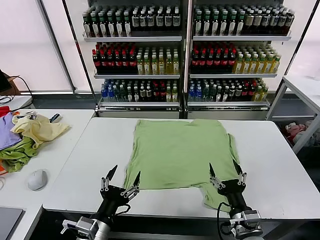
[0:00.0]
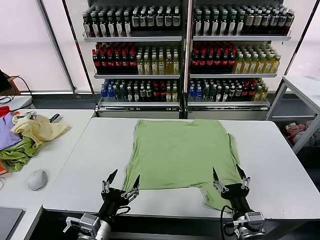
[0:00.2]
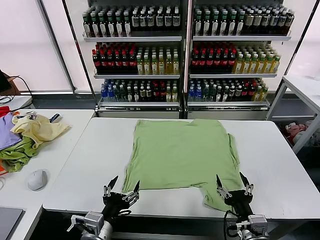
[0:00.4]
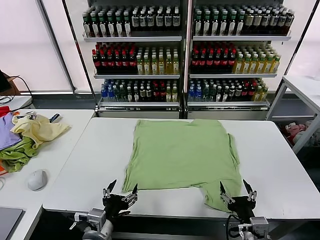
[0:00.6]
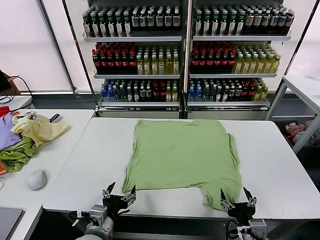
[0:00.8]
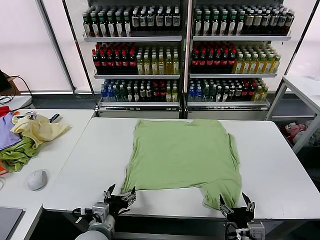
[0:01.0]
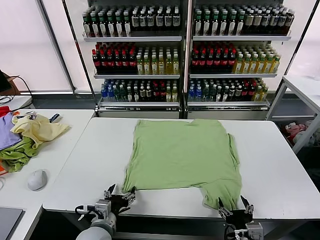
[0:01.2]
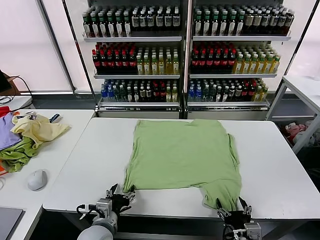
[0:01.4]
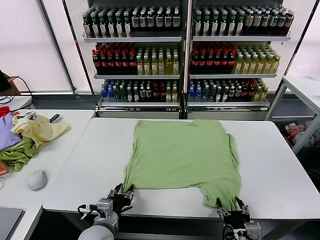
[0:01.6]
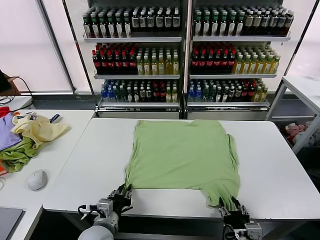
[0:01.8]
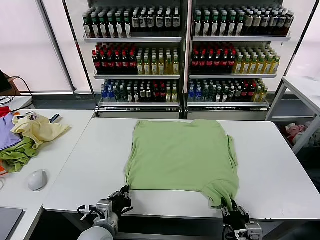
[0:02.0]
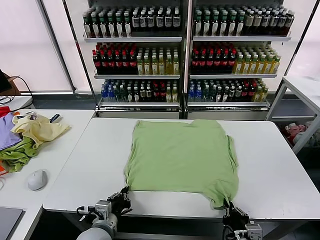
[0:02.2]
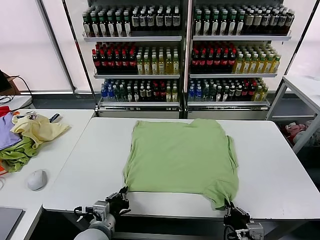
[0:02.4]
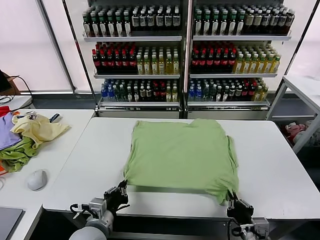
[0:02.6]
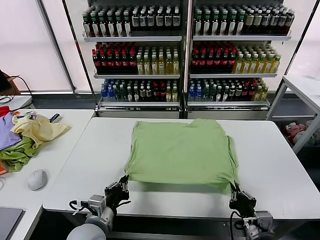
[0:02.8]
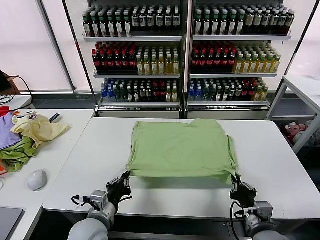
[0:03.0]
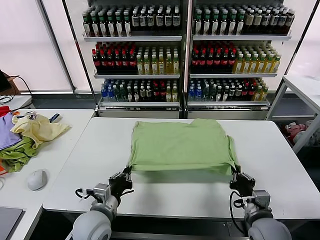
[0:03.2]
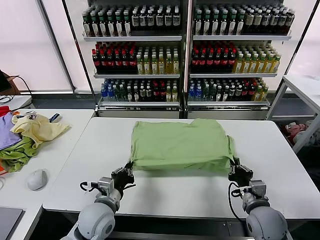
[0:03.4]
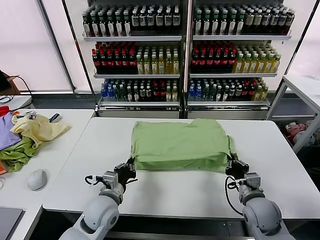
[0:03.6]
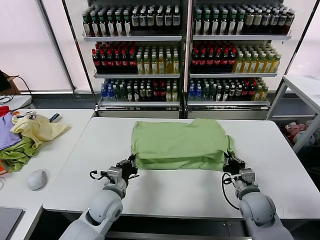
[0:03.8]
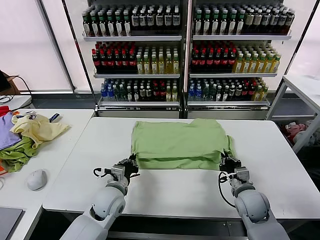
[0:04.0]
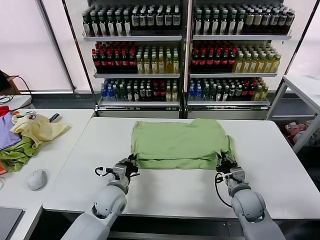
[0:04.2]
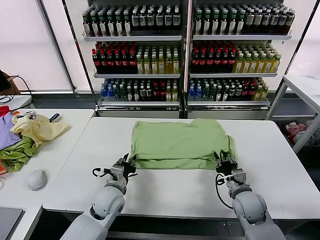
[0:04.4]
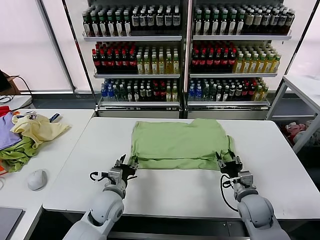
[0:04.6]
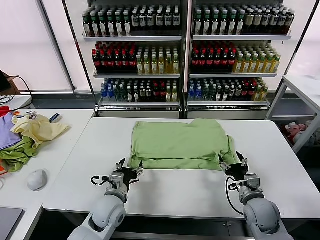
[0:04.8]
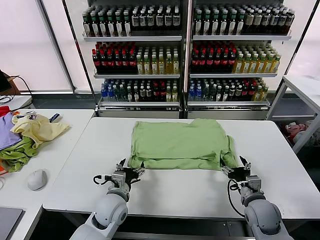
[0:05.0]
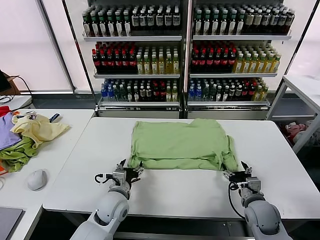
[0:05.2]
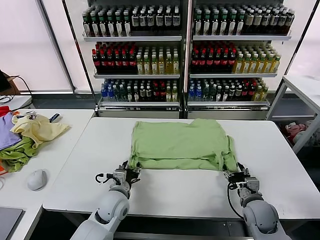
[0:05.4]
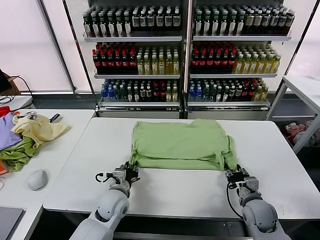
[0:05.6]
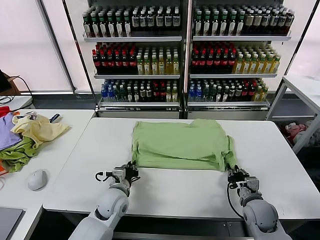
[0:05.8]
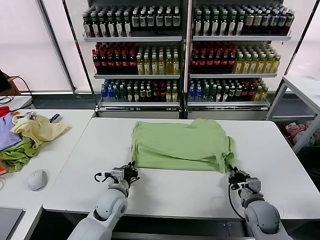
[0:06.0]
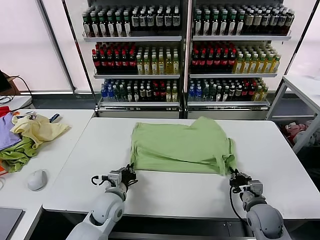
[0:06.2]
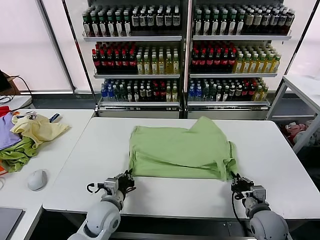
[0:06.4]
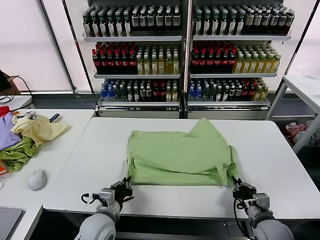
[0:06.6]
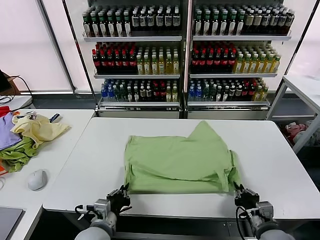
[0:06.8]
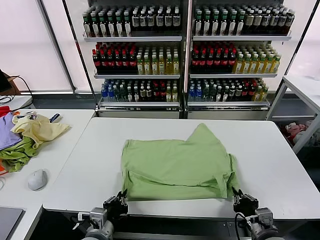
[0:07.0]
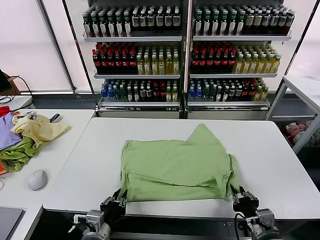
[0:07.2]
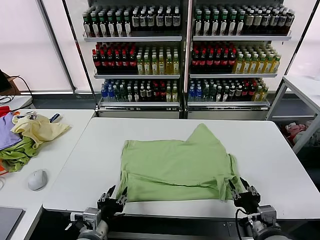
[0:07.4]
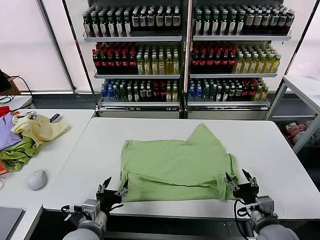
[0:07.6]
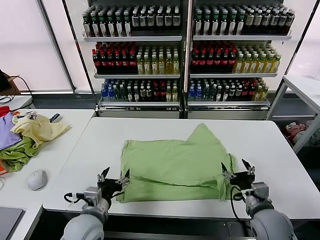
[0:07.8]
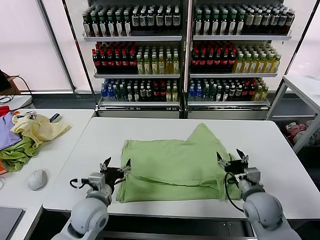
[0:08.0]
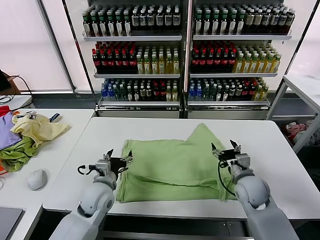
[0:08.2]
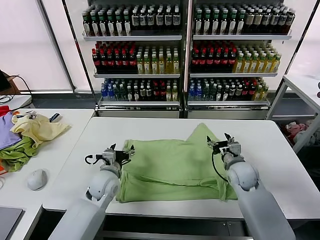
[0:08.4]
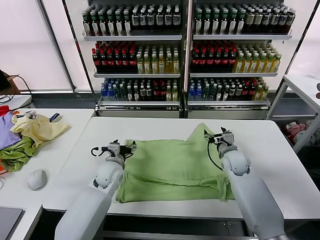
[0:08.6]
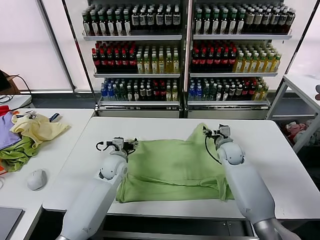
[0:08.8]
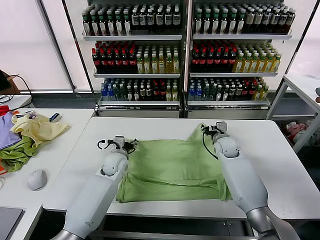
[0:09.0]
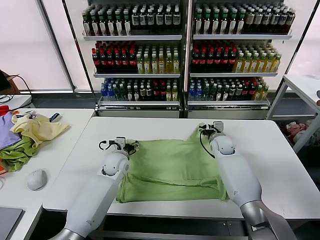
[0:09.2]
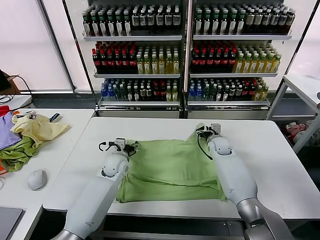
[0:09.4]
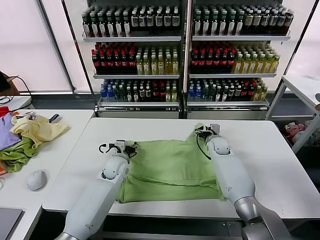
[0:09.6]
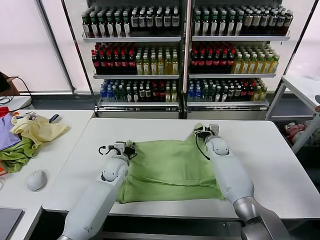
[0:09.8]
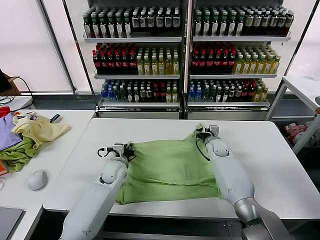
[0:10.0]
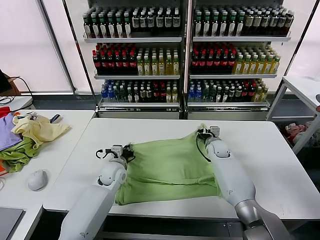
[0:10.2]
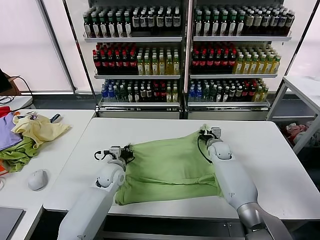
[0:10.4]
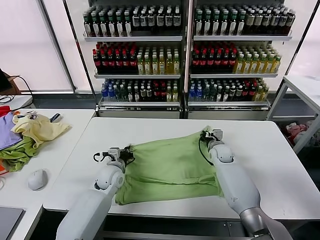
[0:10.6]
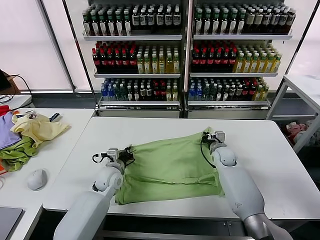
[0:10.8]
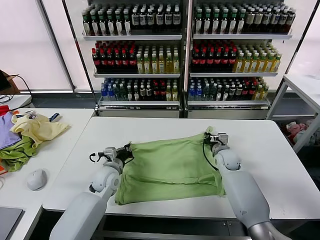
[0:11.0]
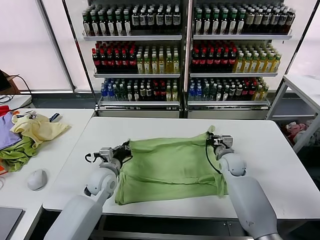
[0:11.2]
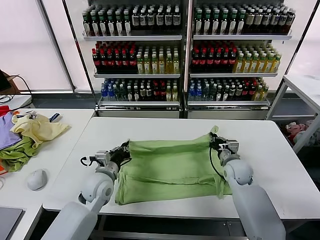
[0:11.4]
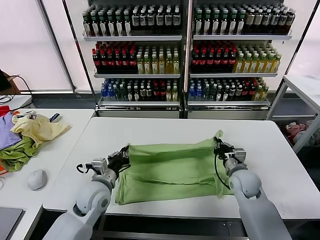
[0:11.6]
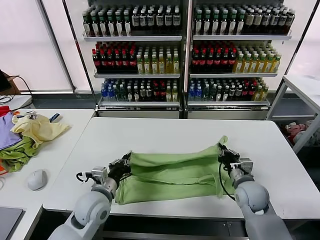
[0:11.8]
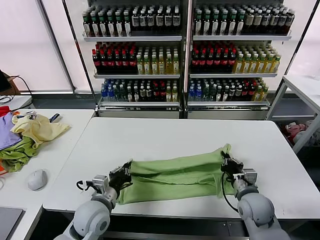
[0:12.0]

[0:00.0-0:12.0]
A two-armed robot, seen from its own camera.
Task of the whole recording: fold and organize the clothes.
Step, 0:00.0 to 0:02.2: use both grippers simultaneously to clamp the lower edge of the clothing fabric.
Step, 0:02.4 to 0:04.4: use both grippers to drag the lower edge of the fabric forward and fold it over the upper edge.
Step, 0:04.6 to 0:07.2: Drag the clothes downward with both gripper.
Step, 0:07.6 to 0:10.6: use both grippers simultaneously to clamp the upper edge of the clothing fabric.
0:01.6 to 0:03.0: The right gripper is displaced forward by about 10 cm, and closes up. The left gripper closes its fingers.
0:03.0 to 0:04.4: Both grippers travel together forward, some 10 cm. The left gripper opens its fingers; the right gripper opens its fingers.
0:04.4 to 0:06.0: The right gripper closes up; the left gripper closes.
0:06.0 to 0:07.6: The right gripper heads upward and backward, covering some 10 cm, and opens its fingers; the left gripper moves backward and upward, about 15 cm, and opens.
0:07.6 to 0:09.0: The two grippers go some 30 cm forward.
0:09.0 to 0:10.4: The left gripper closes its fingers, while the right gripper closes up.
0:10.4 to 0:12.0: The left gripper goes some 15 cm backward. Meanwhile the right gripper is displaced backward by approximately 25 cm.

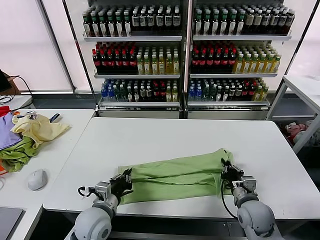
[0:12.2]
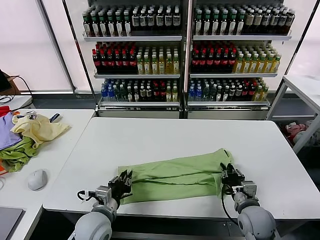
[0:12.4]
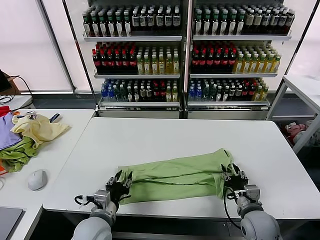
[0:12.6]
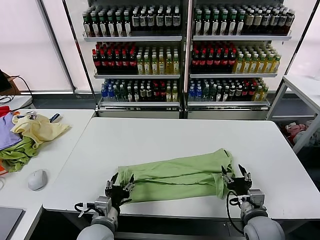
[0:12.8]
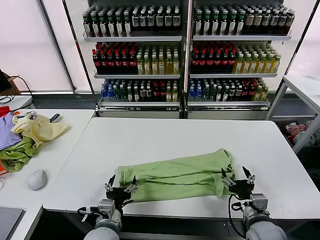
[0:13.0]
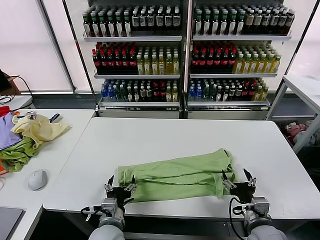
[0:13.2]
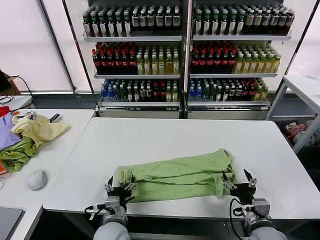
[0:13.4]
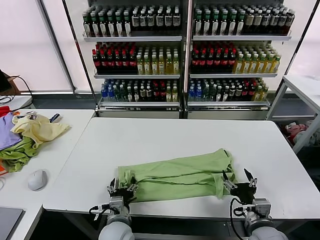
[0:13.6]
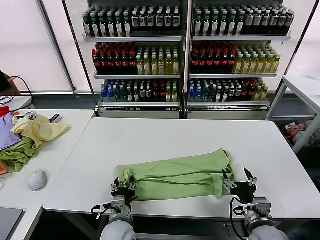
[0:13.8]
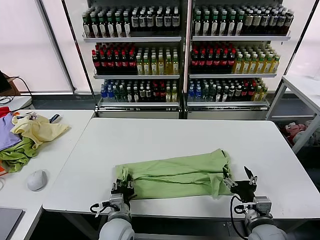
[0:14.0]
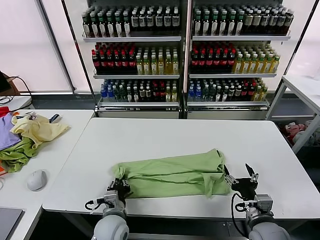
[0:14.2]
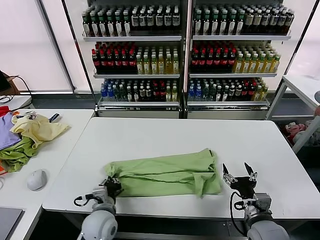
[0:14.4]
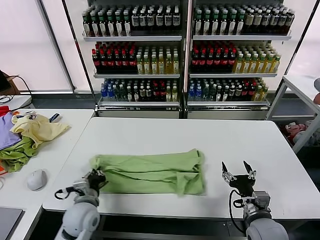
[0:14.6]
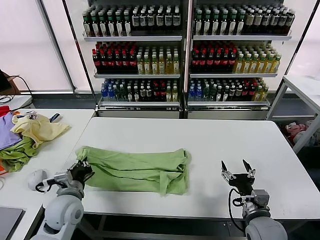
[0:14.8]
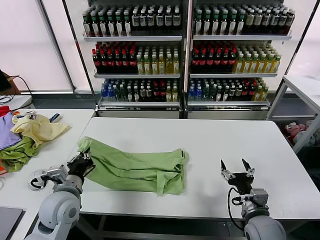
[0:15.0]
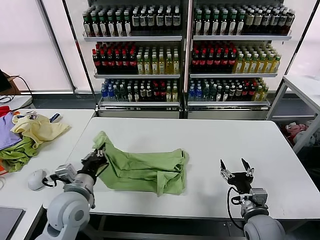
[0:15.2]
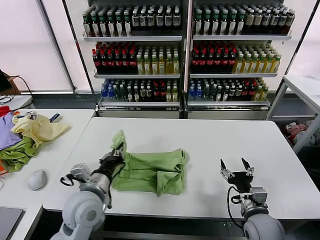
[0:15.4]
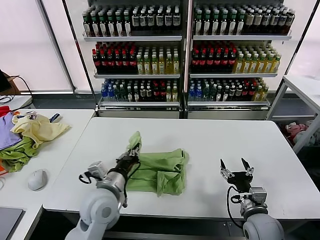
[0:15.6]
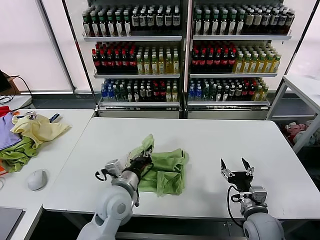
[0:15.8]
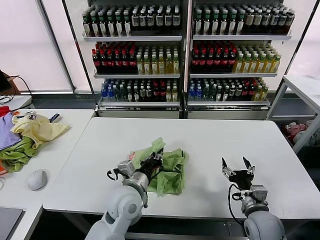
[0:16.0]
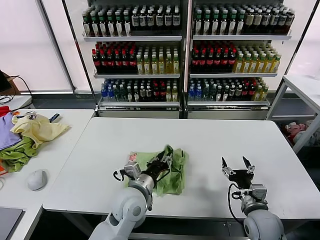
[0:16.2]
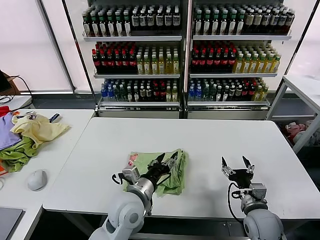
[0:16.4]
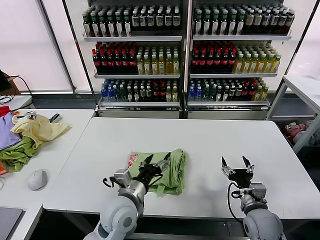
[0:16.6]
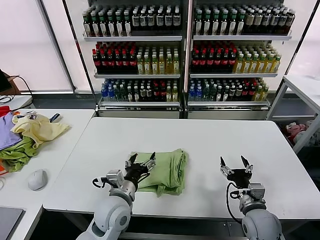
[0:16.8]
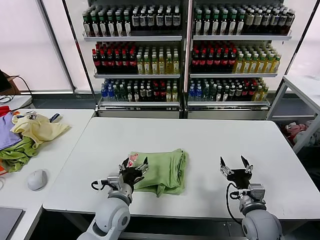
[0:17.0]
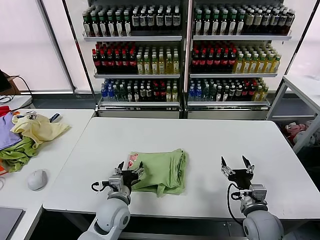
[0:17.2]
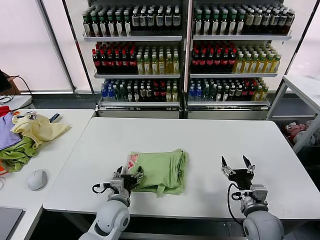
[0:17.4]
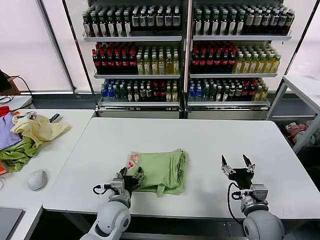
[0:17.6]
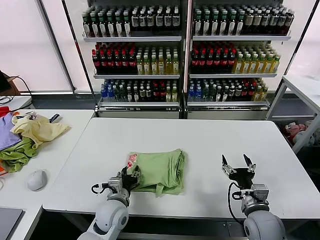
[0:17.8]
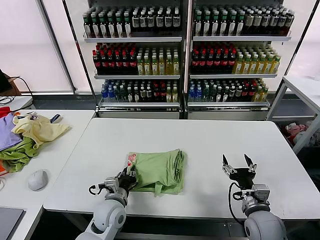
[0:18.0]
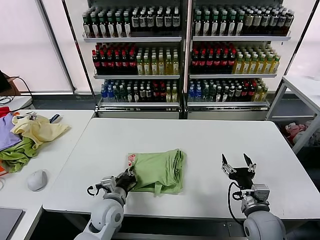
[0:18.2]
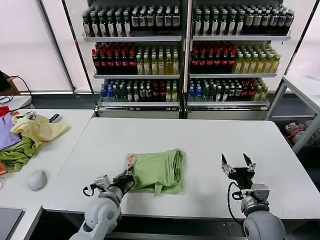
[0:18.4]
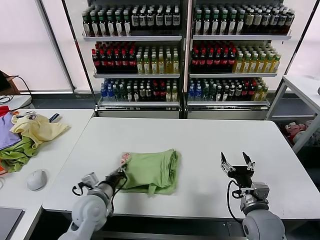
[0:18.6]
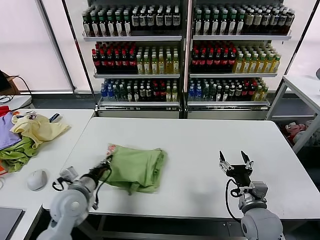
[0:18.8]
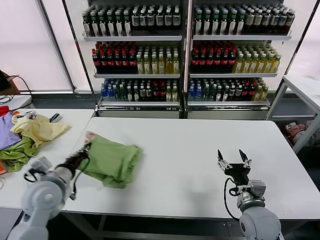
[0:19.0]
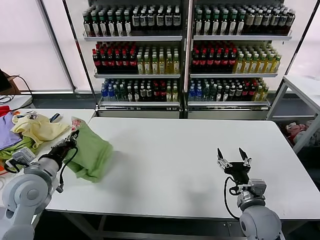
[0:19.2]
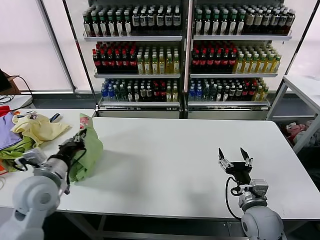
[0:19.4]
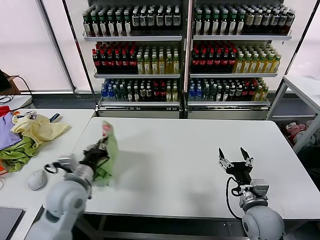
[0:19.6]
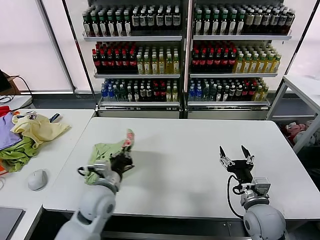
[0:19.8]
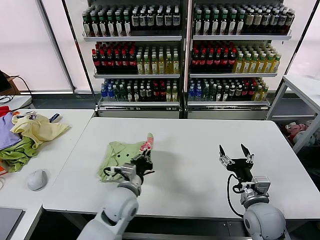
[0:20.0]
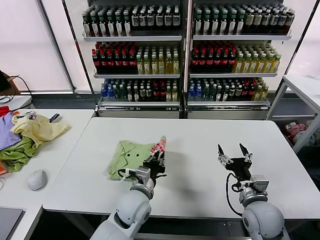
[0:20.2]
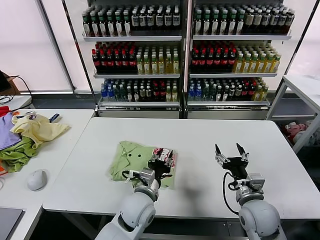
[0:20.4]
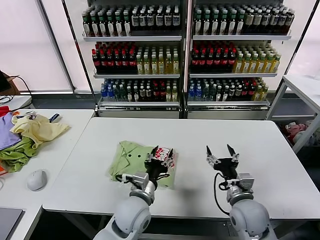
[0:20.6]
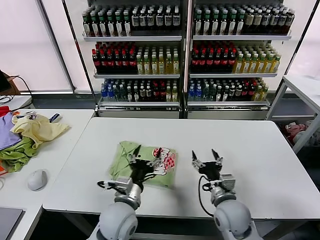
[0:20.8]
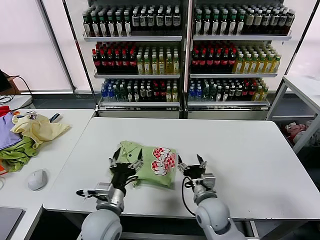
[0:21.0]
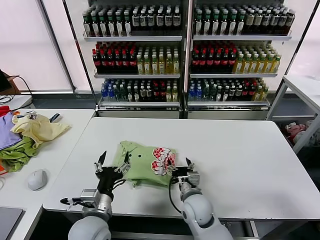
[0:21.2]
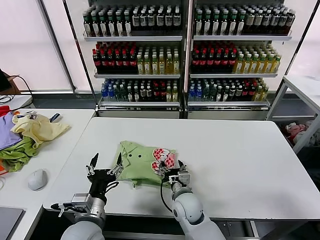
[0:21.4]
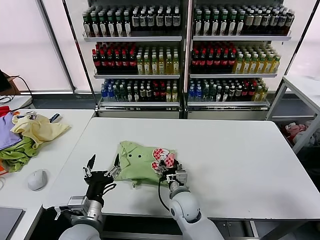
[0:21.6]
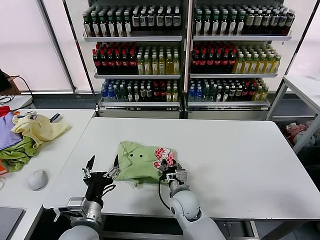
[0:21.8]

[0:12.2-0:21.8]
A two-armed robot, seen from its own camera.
Task of the whole recording: fold and organize the clothes.
Step, 0:12.8 to 0:14.2: use the left gripper to clamp the left edge of the fabric.
Step, 0:14.4 to 0:16.2: use the left gripper to drag the left edge of the fabric to the left and folds it over the right edge.
Step, 0:16.6 to 0:20.4: Flip the folded clothes over with left gripper.
0:12.2 to 0:13.8: The left gripper goes about 10 cm to the right and downward, and opens; the right gripper is displaced backward by about 5 cm, and opens up.
0:13.8 to 0:15.4: The left gripper travels upward and to the left by about 15 cm, and closes.
0:15.4 to 0:17.0: The left gripper is displaced downward and to the right by approximately 10 cm, and opens up.
0:17.0 to 0:18.6: The left gripper heads to the left, covering about 10 cm, and closes.
0:18.6 to 0:20.2: The left gripper is displaced to the right by some 15 cm.
0:20.2 to 0:21.8: The left gripper moves to the left and backward, some 15 cm, and opens up. The right gripper moves to the left, some 20 cm, and closes up.
